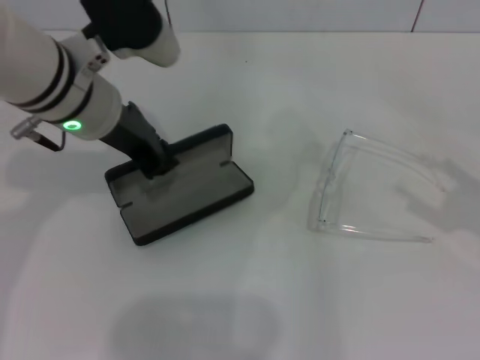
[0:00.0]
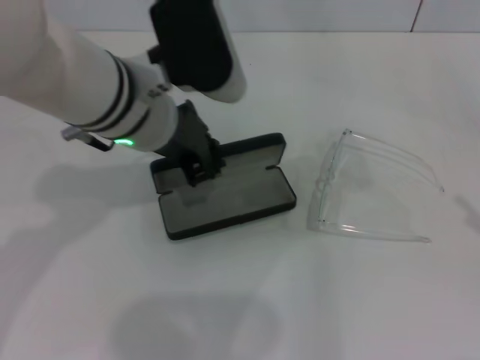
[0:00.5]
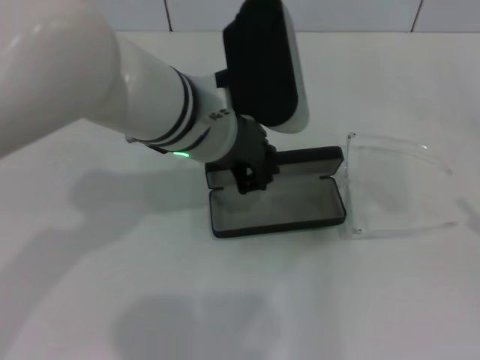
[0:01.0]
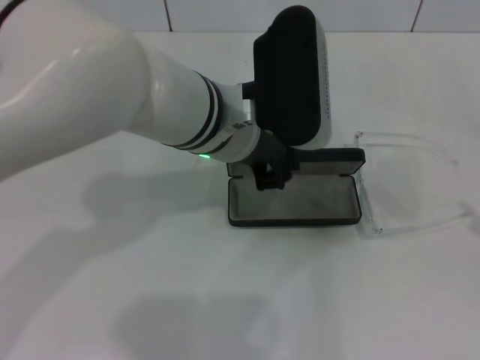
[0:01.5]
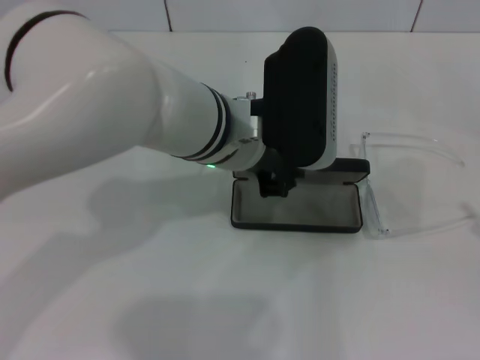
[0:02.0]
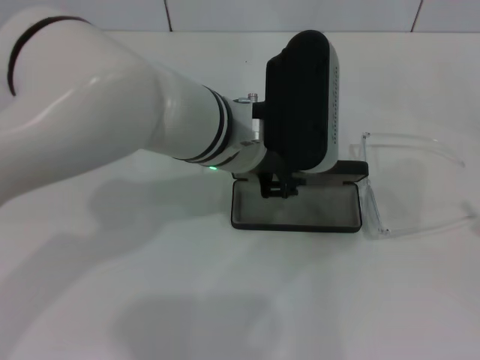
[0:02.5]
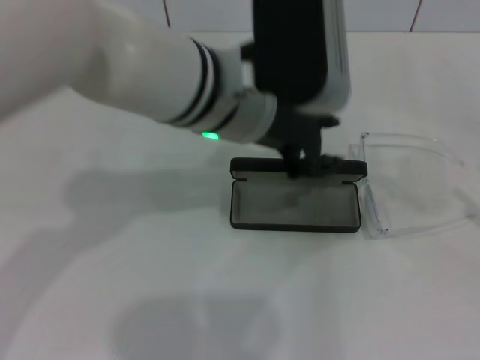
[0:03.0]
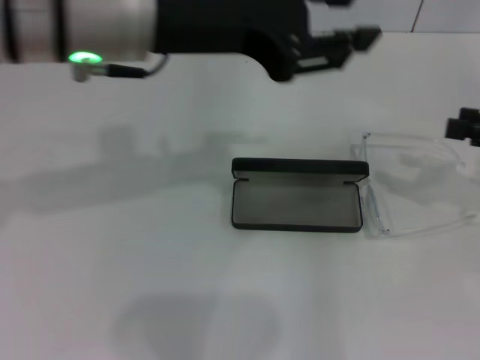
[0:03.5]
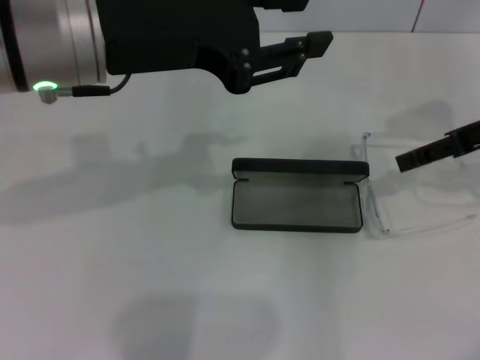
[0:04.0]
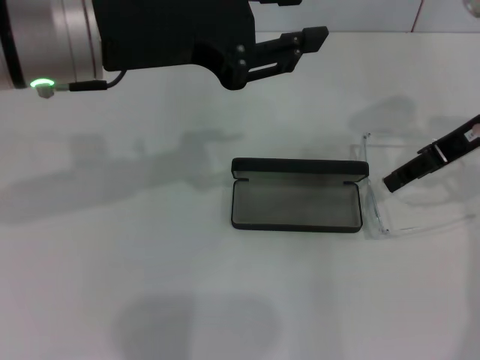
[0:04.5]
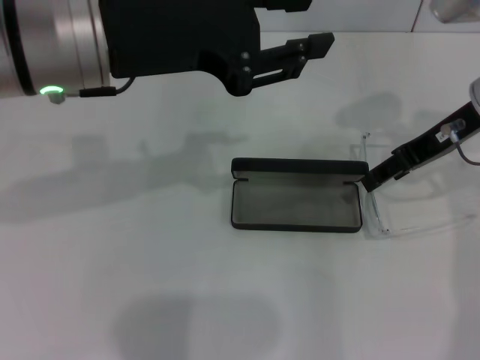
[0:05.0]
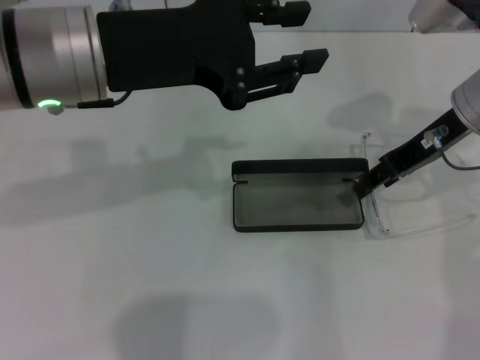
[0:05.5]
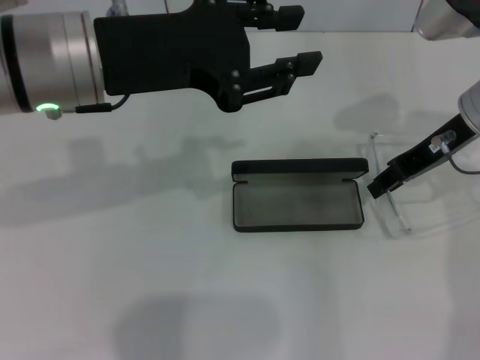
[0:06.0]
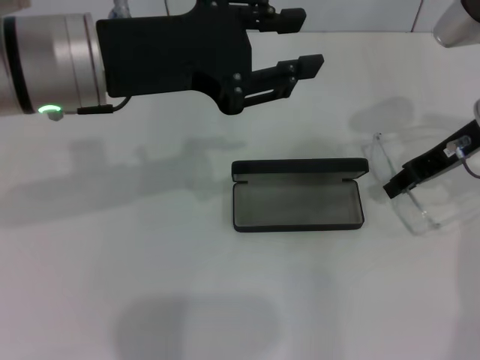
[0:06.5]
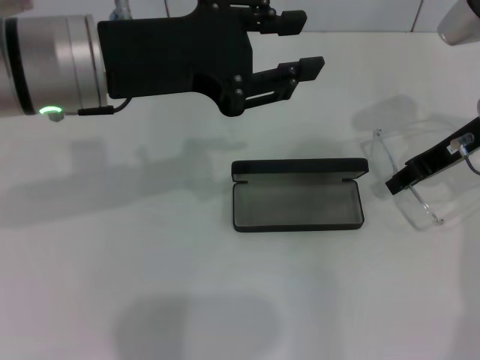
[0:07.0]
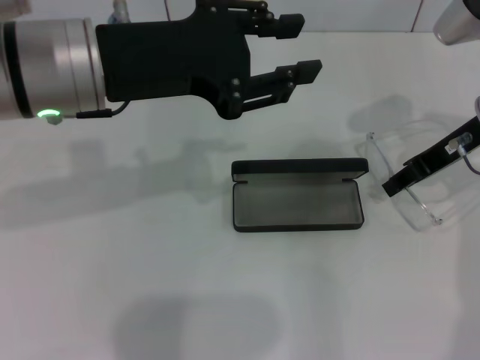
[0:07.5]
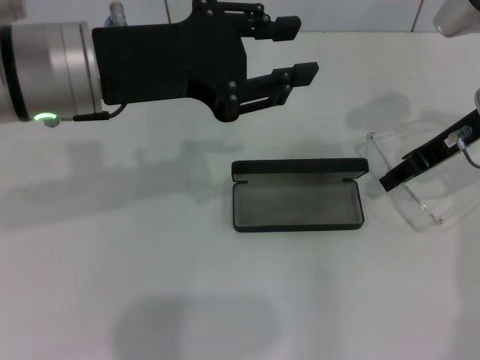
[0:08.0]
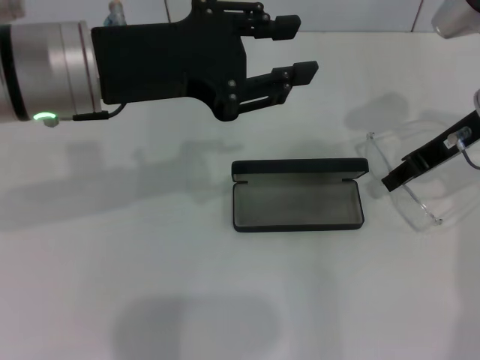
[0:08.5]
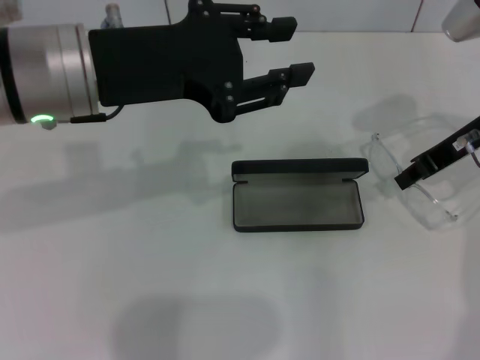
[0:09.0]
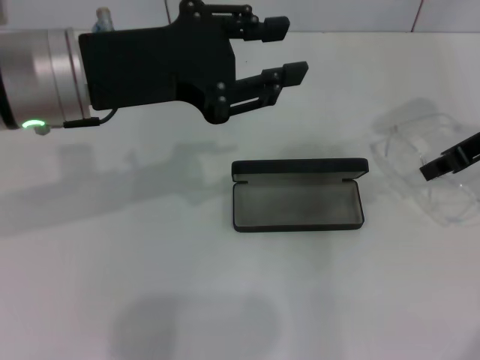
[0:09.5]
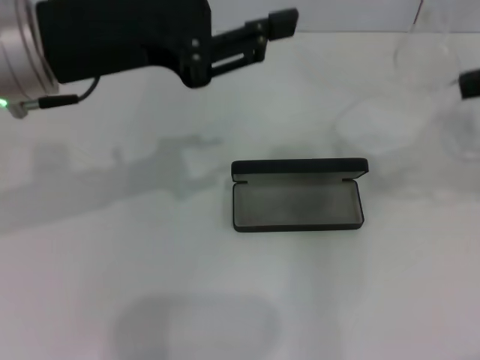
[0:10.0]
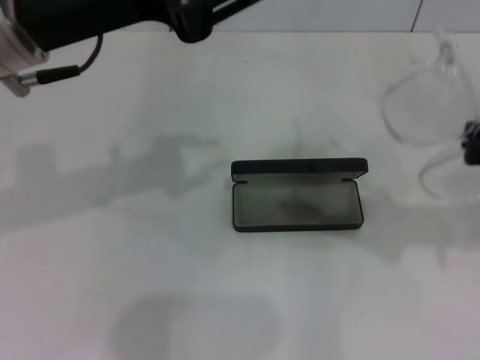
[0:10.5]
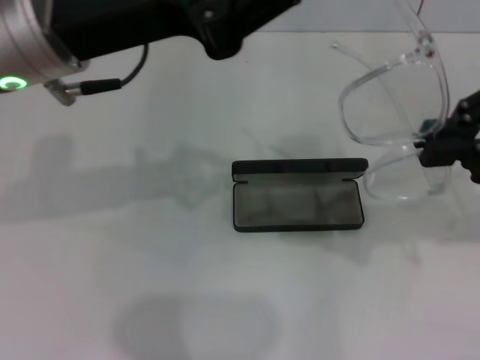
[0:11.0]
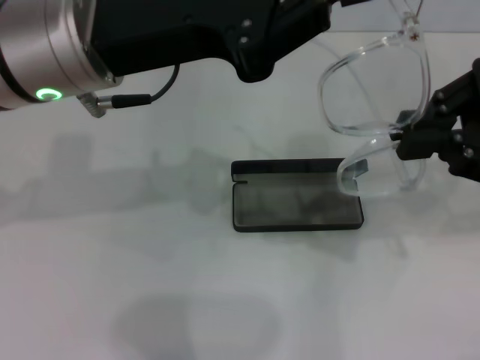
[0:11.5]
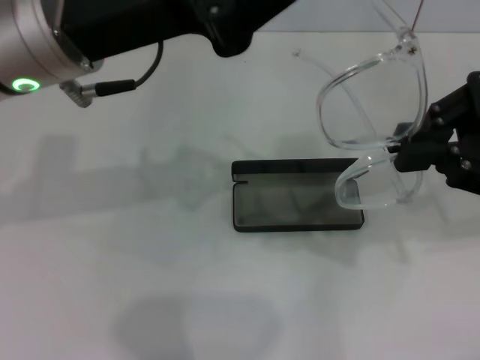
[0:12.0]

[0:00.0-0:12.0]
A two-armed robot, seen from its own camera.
Step, 0.0 to 2.5 s: Place the glasses case in the center of the table with your left hand.
Step, 3.0 to 9.0 s: Grab the eyeglass frame with your right hand.
0.0 to 2.0 s: The right gripper heads backward, covering some 5 cm; the left gripper shifts approximately 10 cm to the right.
2.0 to 4.0 s: The right gripper shifts about 25 cm forward, to the left and upward, while the left gripper moves to the left and upward, roughly 15 cm.
4.0 to 6.0 s: The right gripper goes about 5 cm to the left.
6.0 to 8.0 s: The grippers move only a little.
8.0 to 10.0 s: The right gripper goes roughly 15 cm upward, to the right and backward, and closes its fingers.
10.0 to 12.0 s: The left gripper closes, while the right gripper moves downward and to the left, approximately 10 cm.

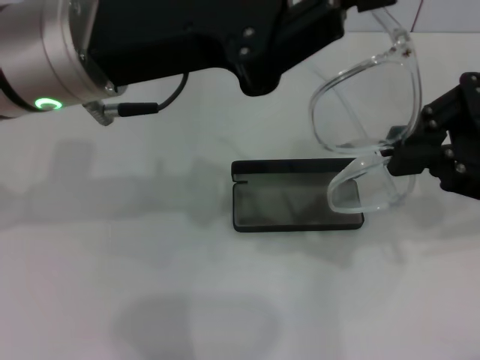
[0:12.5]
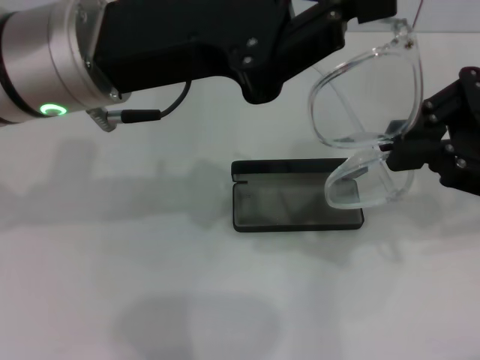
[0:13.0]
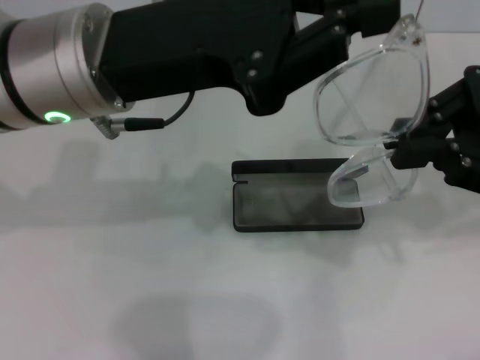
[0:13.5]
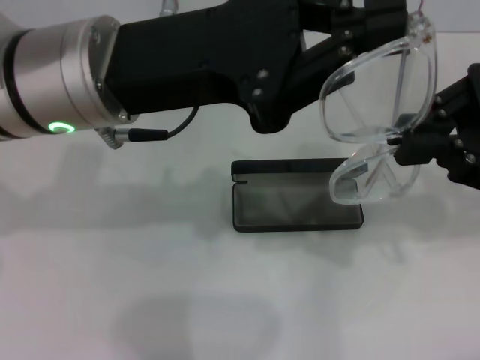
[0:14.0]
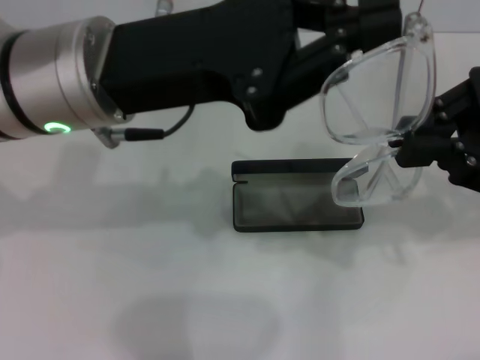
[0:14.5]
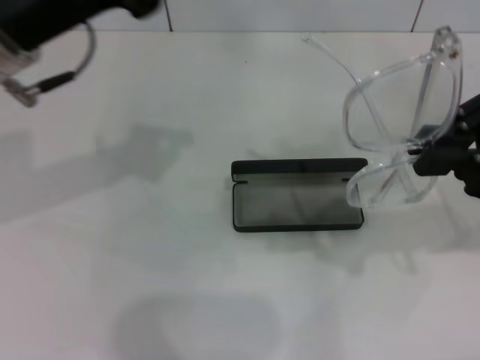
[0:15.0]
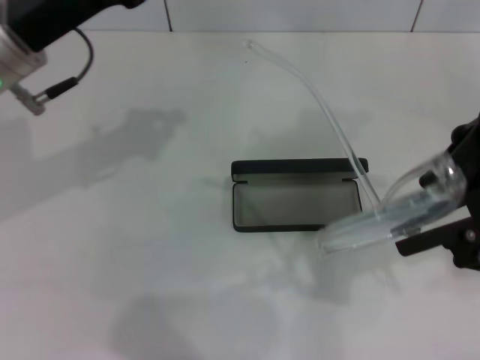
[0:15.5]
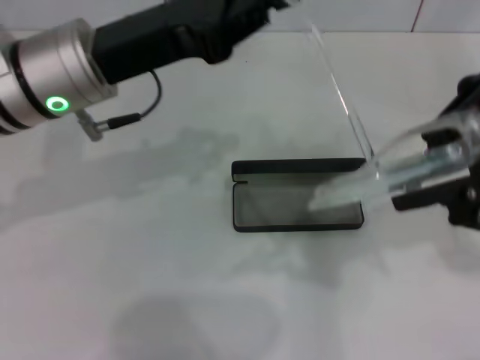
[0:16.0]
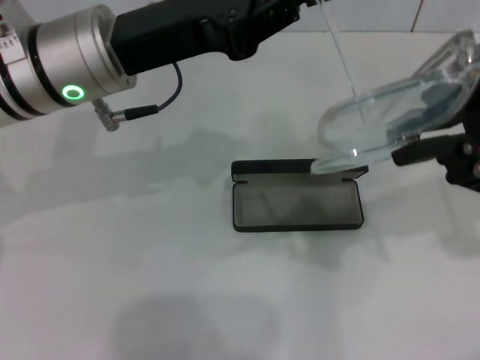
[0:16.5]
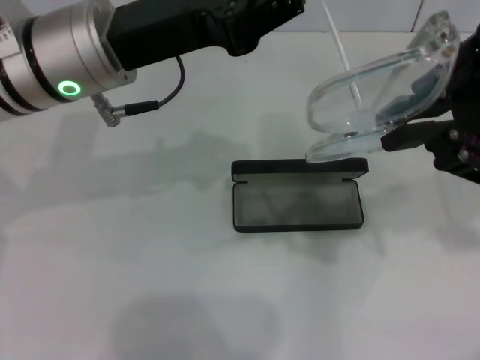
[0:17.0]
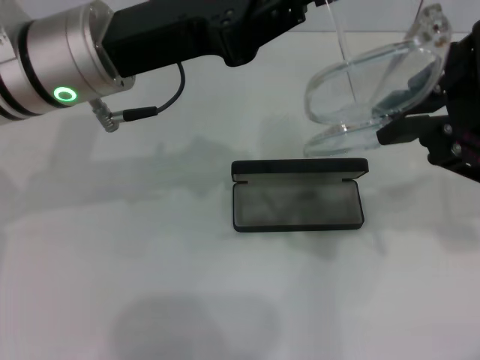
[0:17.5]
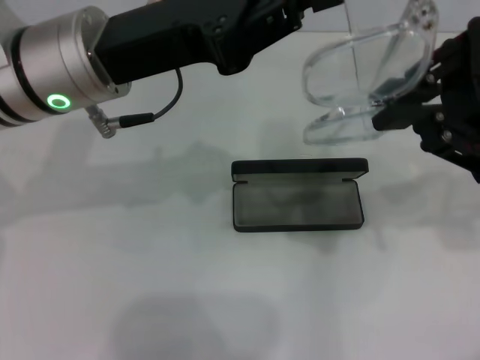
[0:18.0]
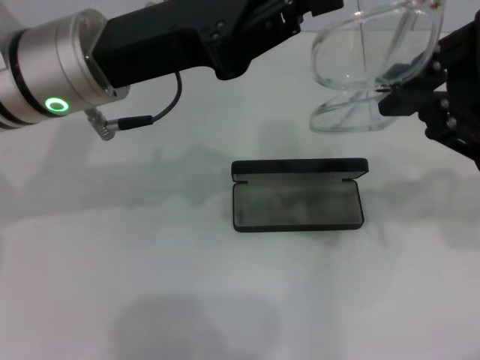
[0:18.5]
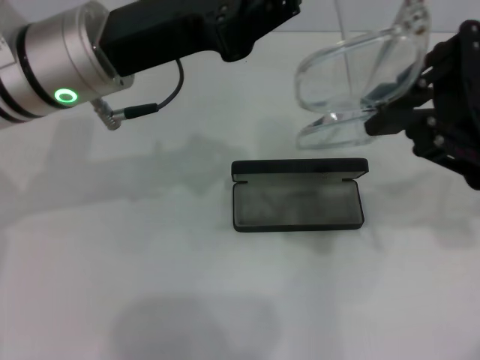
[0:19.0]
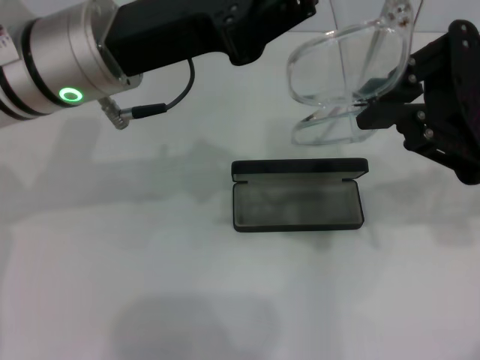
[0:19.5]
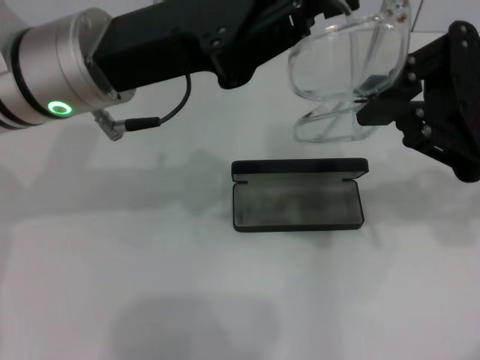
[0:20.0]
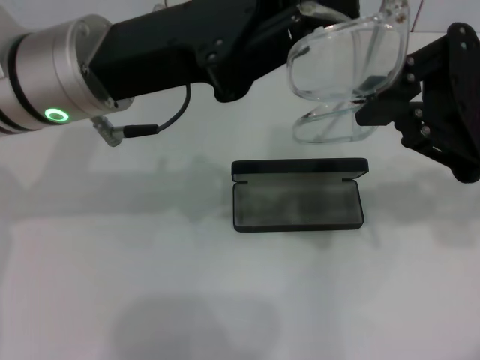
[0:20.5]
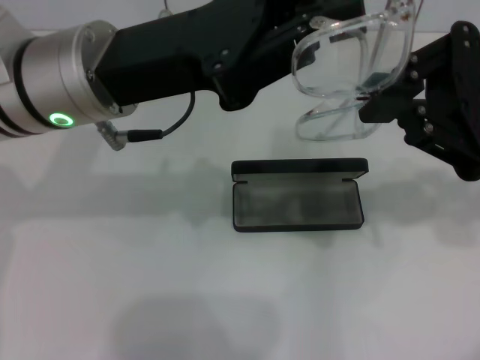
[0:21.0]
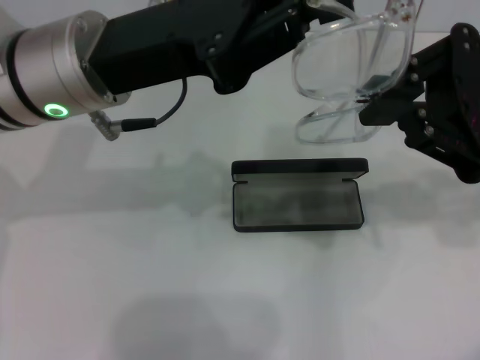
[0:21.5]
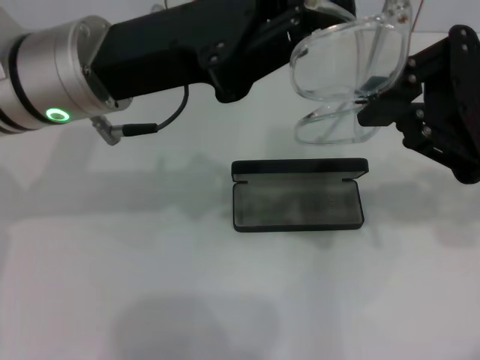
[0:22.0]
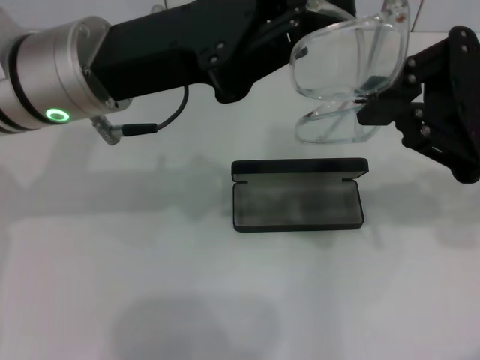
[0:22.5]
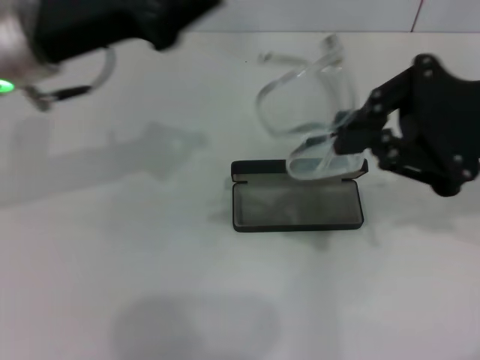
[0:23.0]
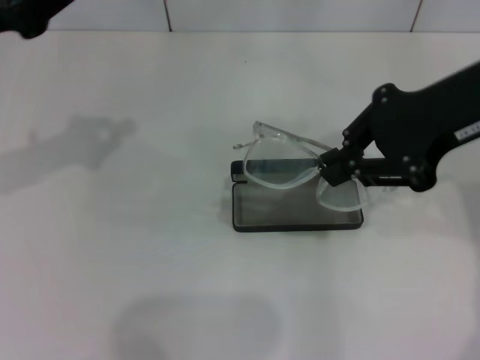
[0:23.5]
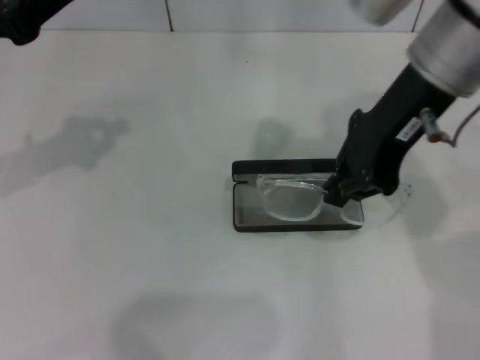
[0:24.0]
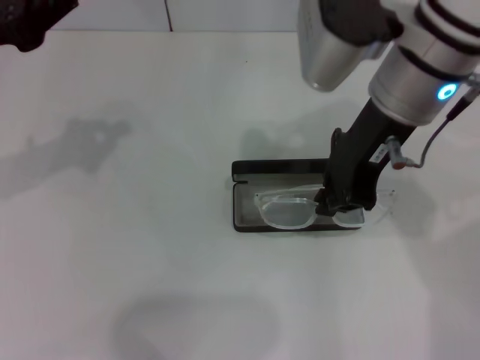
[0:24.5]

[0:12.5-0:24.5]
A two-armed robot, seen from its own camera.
Step, 12.5 to 20.5 s: Fold the frame with your left hand.
12.5 to 14.5 s: Both grippers stay put.
16.5 to 20.5 s: There are only small adjustments of the grippers.
20.5 to 22.5 s: Both grippers stay put.
22.5 to 24.5 s: The two grippers go some 15 cm to the left.

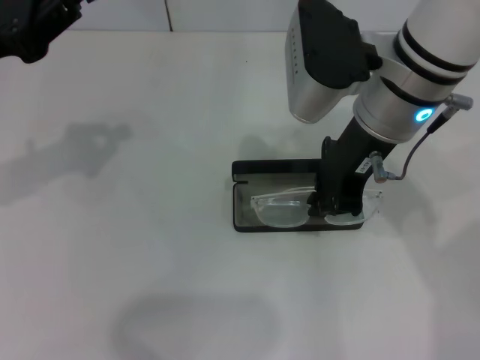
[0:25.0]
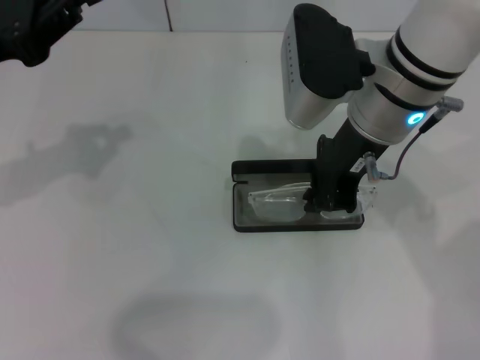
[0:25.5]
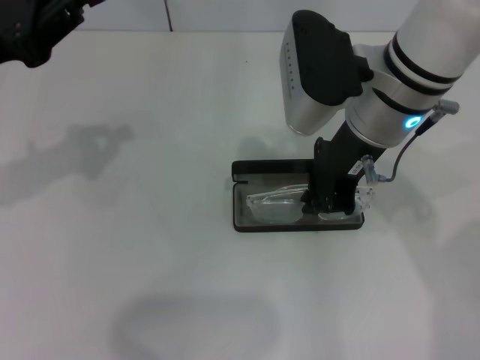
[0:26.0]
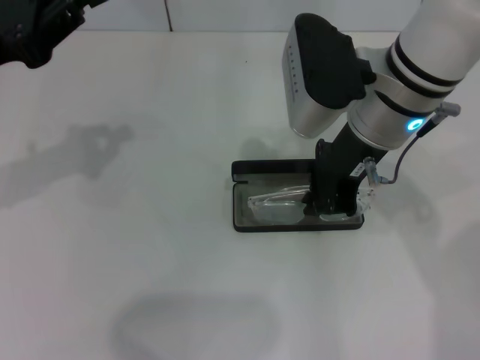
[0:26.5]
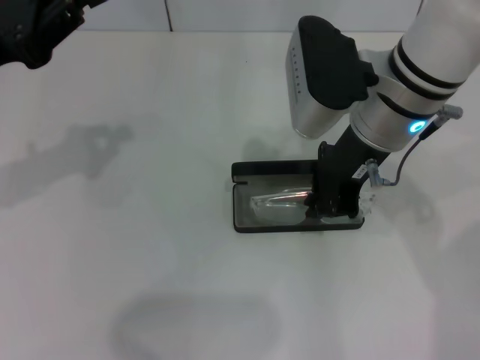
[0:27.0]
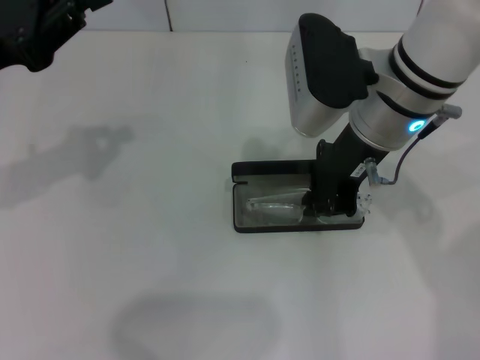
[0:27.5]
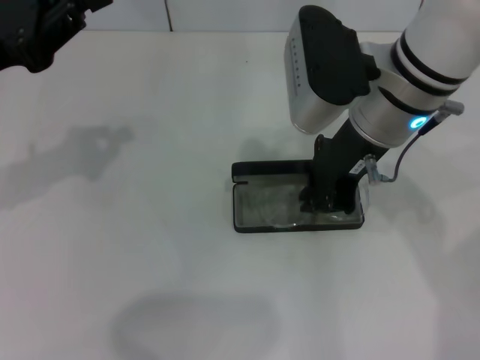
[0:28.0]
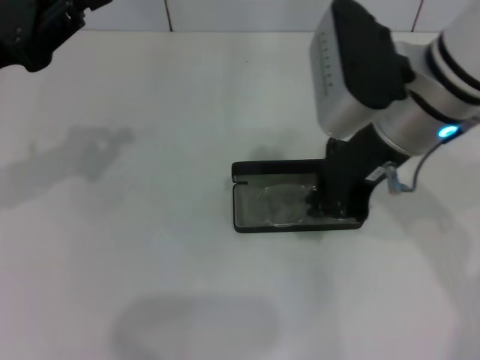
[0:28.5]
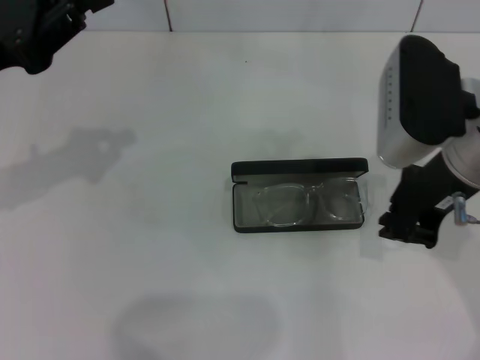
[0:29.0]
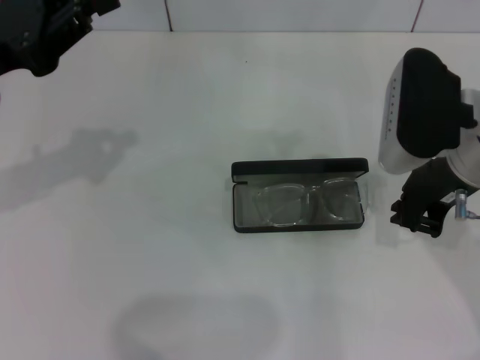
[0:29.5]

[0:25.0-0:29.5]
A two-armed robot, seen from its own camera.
Step, 25.0 to 28.0 s: Put the glasses into the case with your right hand.
25.0 to 27.0 s: The grippers move only a little.
27.0 to 29.5 s: The right gripper is displaced to the right by roughly 10 cm.
